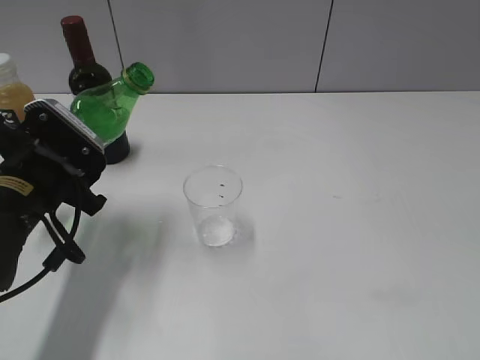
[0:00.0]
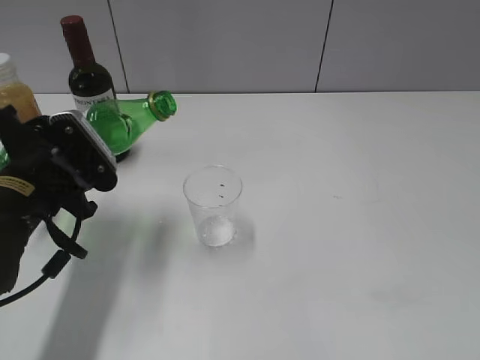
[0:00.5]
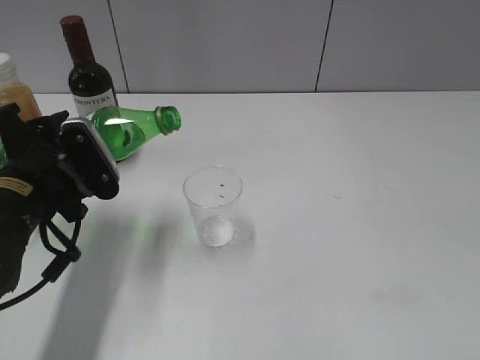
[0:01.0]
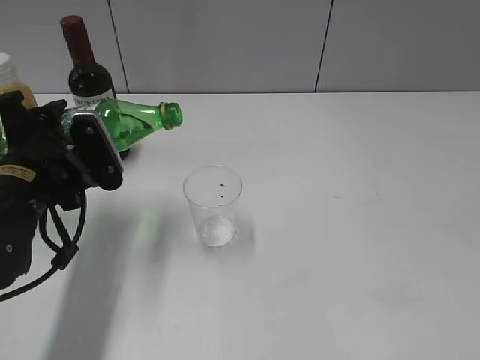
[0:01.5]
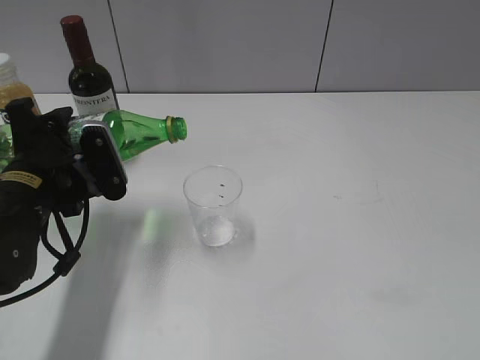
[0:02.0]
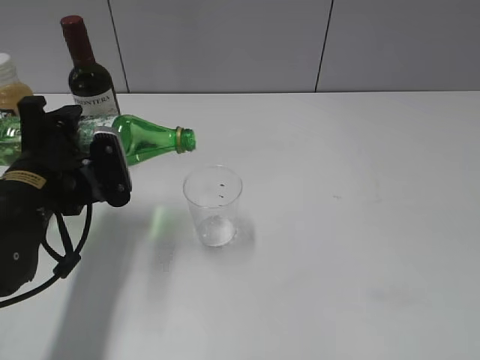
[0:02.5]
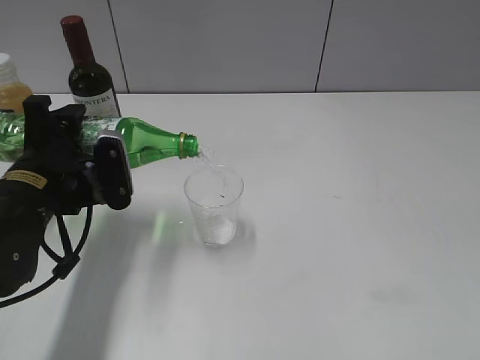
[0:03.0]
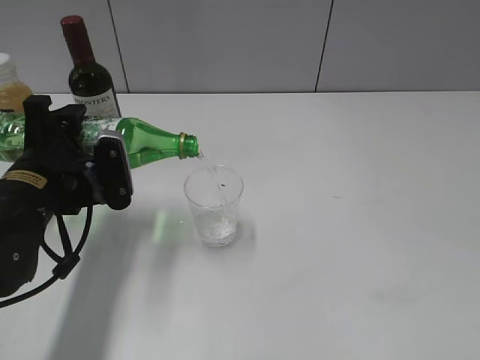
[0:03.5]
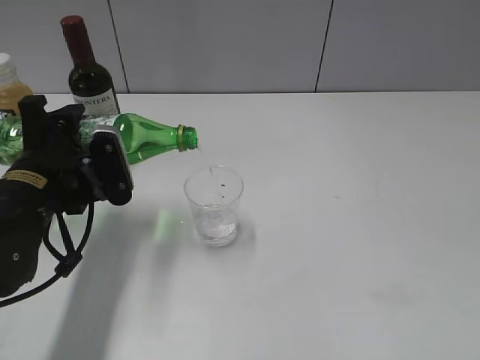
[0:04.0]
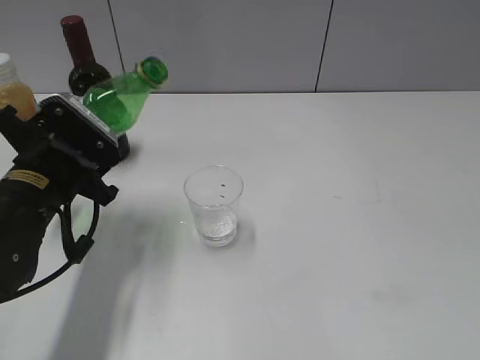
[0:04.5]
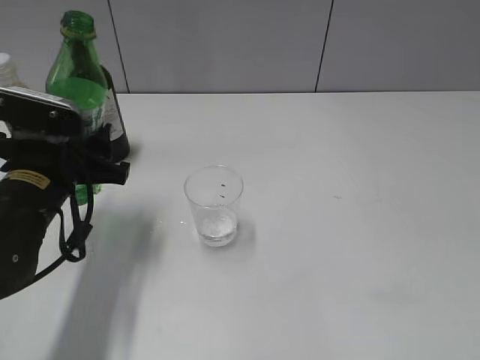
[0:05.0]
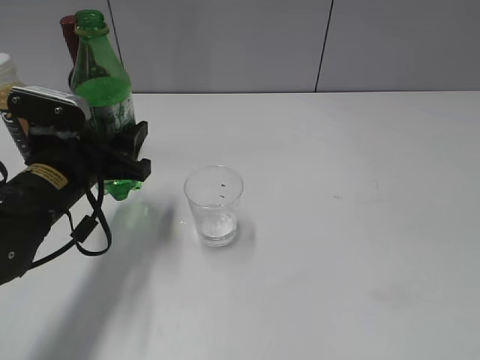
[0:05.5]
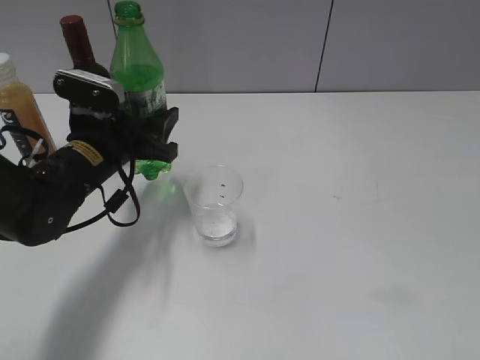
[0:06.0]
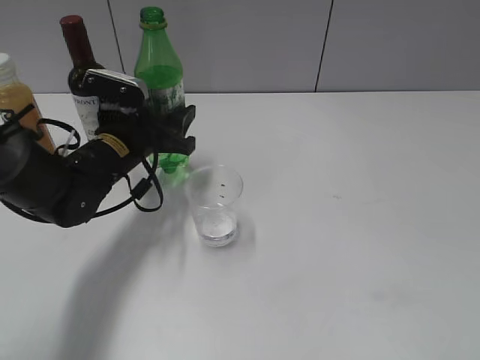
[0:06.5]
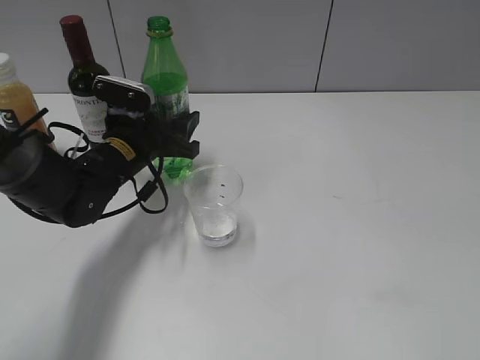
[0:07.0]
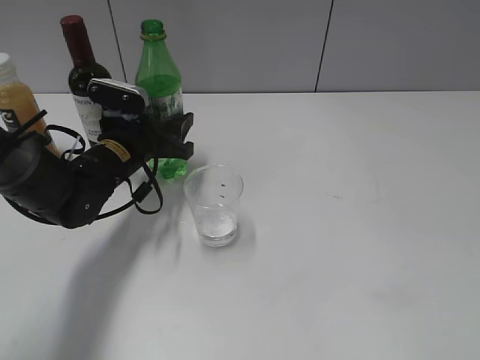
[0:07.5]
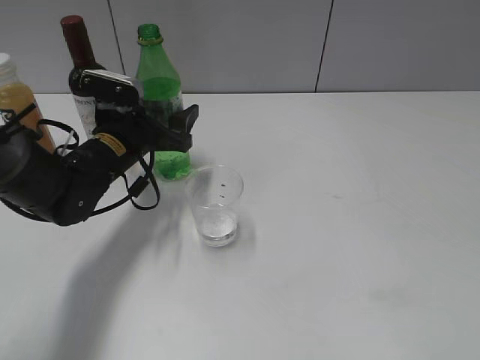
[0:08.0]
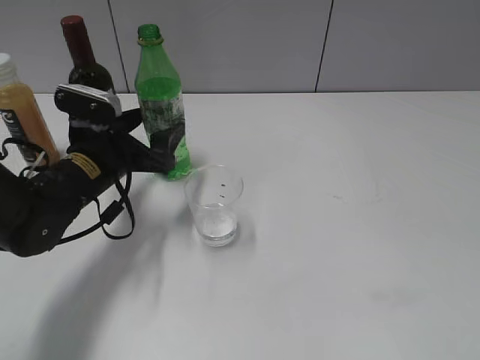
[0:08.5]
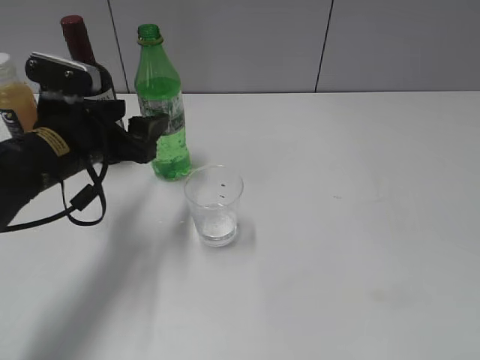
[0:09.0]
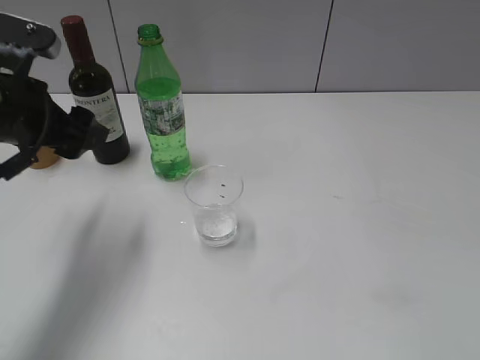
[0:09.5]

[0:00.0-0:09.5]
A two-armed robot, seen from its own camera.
Step, 0:00.0 to 0:04.0: Pour the sprite from bottle to cup with left gripper.
Step, 0:04.5 to 0:08.5: Place the sprite bottle on the table with left gripper.
0:02.0 to 0:04.0: The grippers make only small movements.
0:05.5 to 0:07.5: The left gripper travels forward by some 10 cm.
0:07.5 to 0:09.5: The left gripper moves upward, backward and to the left, some 15 cm, and opens up.

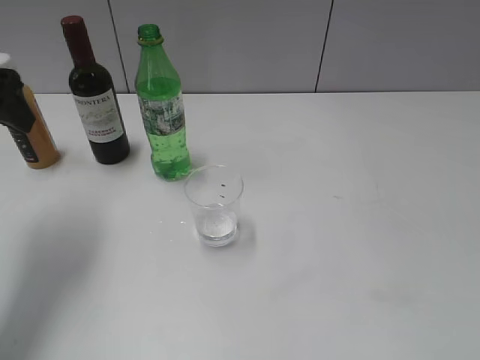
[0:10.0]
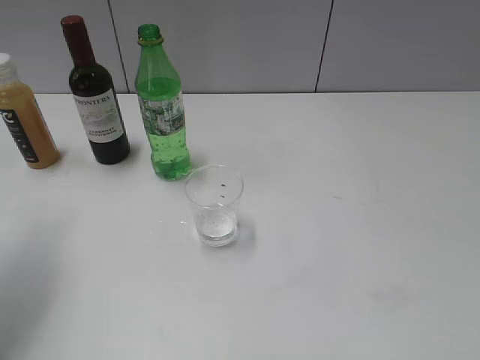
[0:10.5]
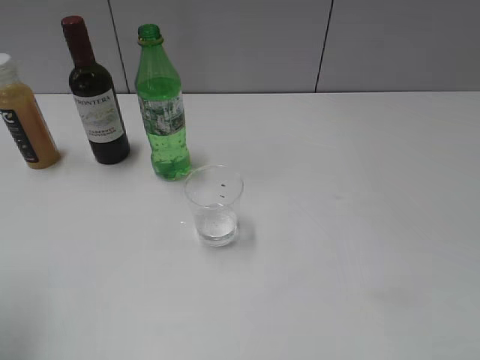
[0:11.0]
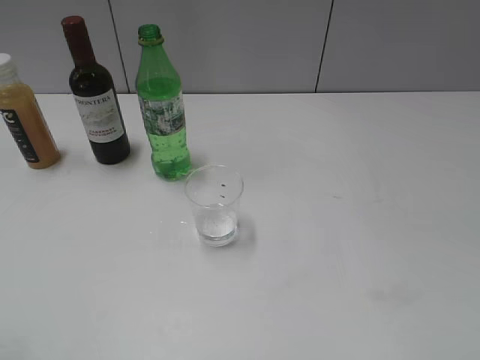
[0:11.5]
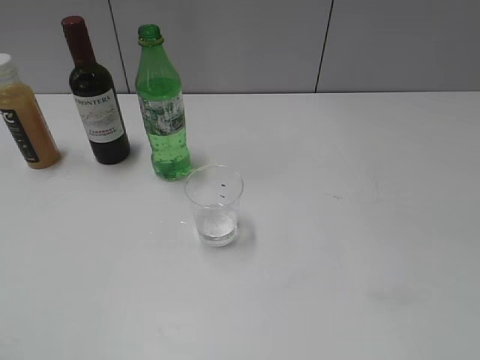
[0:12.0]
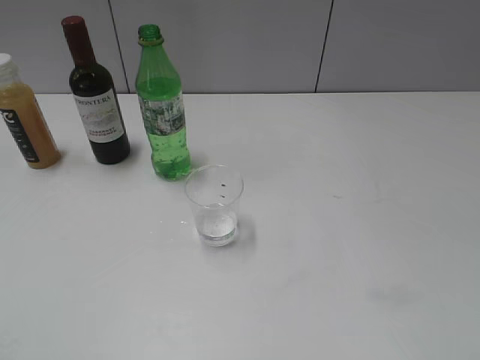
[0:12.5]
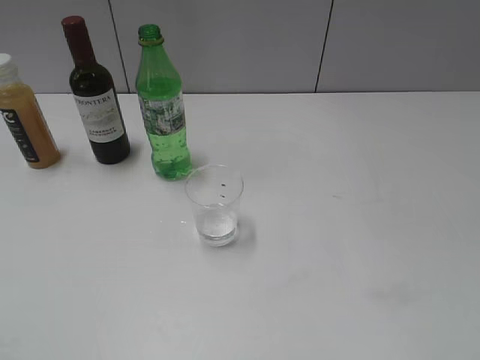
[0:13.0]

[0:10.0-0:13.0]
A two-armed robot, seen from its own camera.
0:10.0 to 0:11.5: The left gripper is displaced backward by approximately 20 cm.
